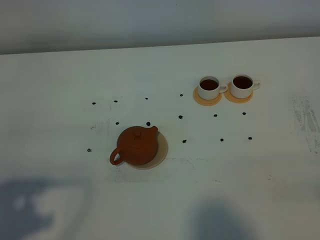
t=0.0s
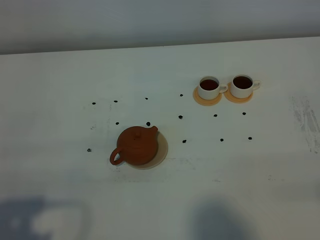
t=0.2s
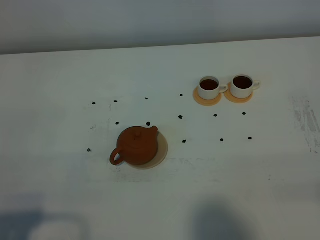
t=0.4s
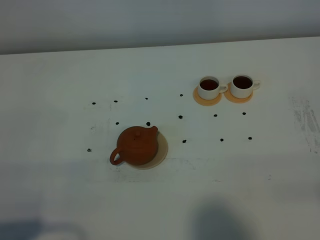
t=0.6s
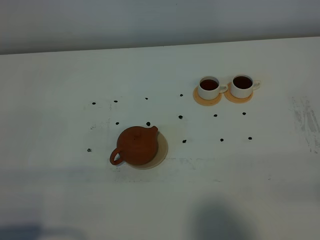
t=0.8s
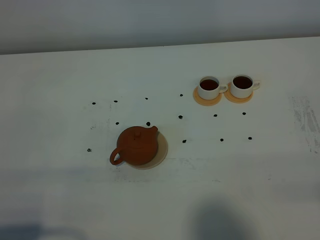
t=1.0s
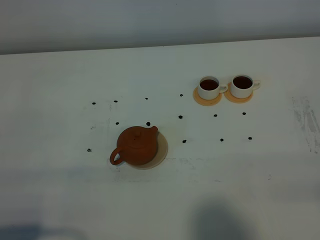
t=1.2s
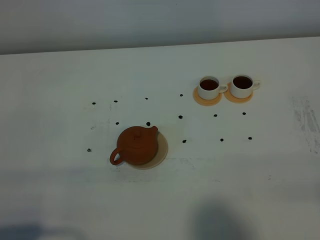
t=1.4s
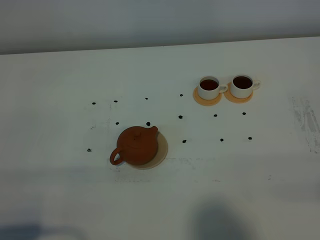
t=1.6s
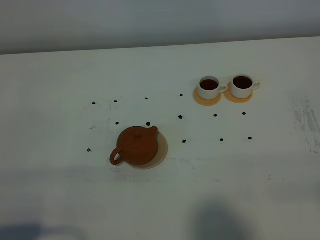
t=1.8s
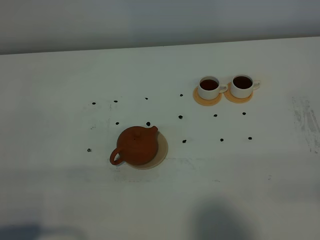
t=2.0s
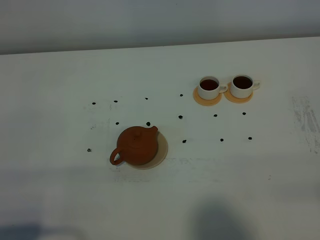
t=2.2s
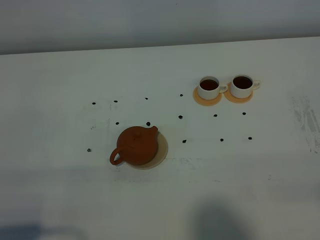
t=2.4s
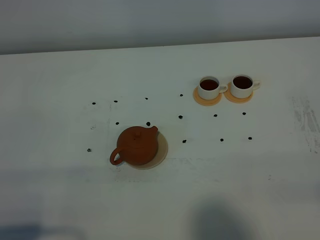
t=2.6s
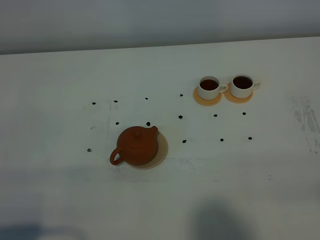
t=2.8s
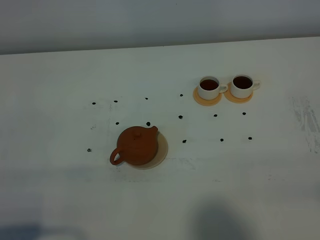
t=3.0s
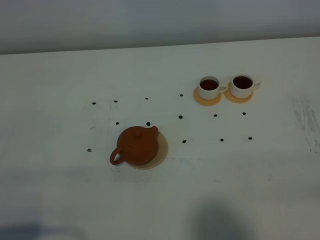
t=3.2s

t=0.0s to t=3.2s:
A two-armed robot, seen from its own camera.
Task of the whole recording: grasp the brown teapot and pour the tea into the two white teacups one by one, put the brown teapot back in its original place.
t=0.0s to t=1.6s: The left gripper shifts some 5 cm backward.
t=1.6s to t=3.2s: Both grippers stay about where they are.

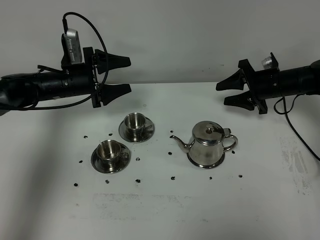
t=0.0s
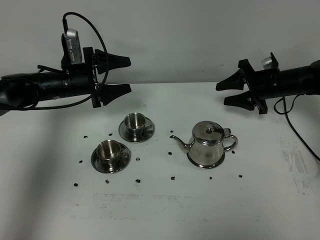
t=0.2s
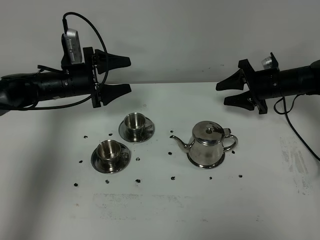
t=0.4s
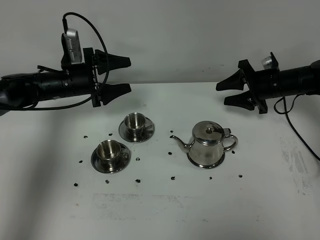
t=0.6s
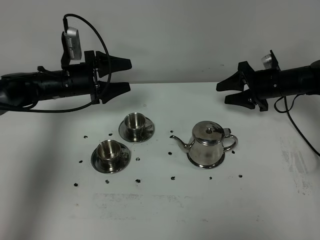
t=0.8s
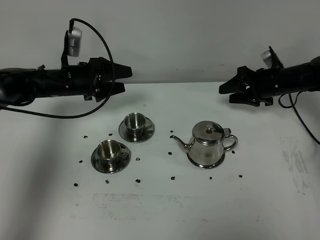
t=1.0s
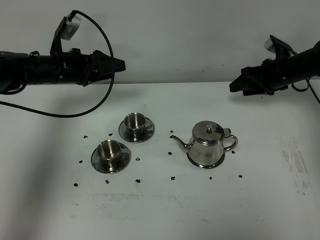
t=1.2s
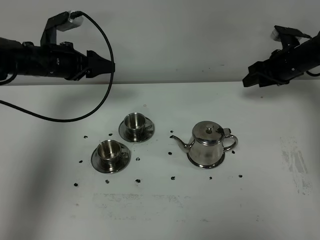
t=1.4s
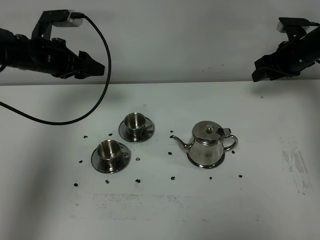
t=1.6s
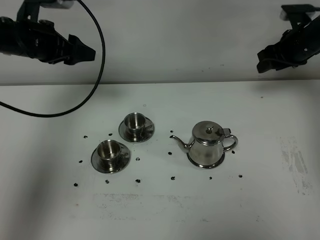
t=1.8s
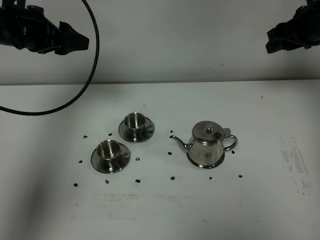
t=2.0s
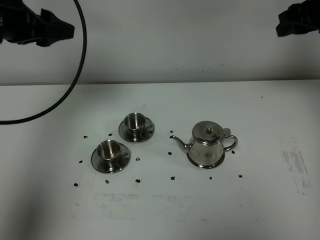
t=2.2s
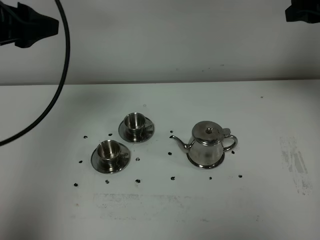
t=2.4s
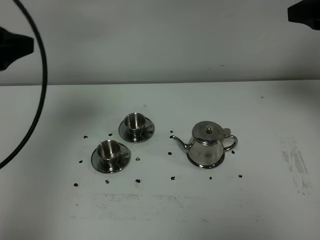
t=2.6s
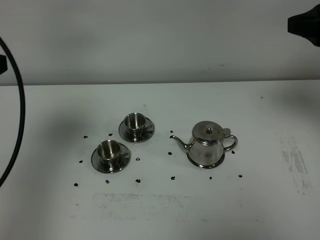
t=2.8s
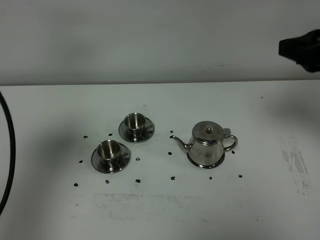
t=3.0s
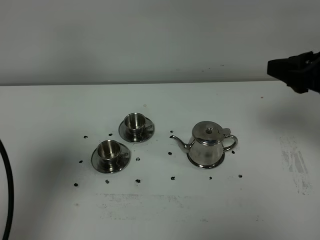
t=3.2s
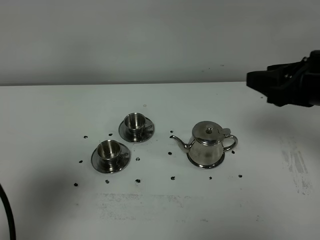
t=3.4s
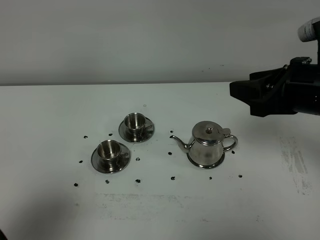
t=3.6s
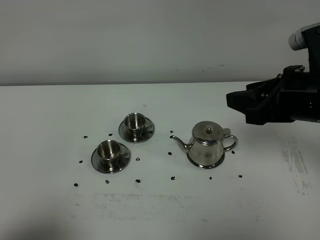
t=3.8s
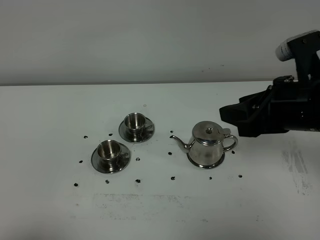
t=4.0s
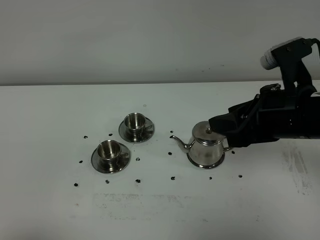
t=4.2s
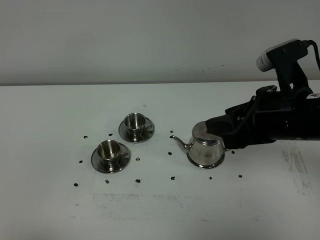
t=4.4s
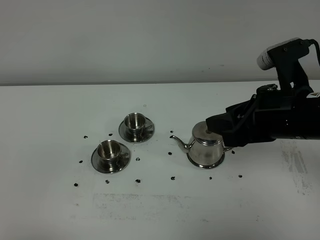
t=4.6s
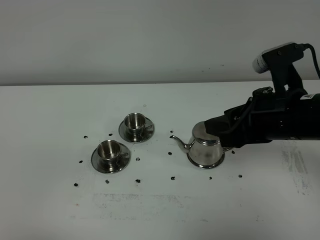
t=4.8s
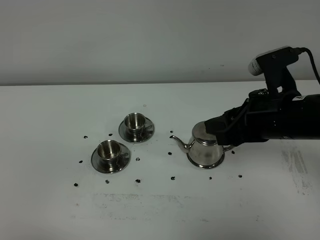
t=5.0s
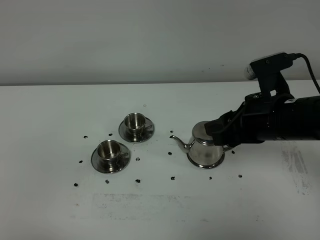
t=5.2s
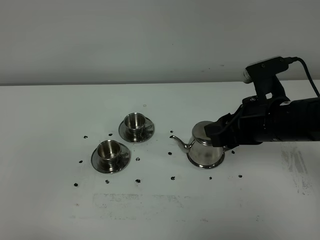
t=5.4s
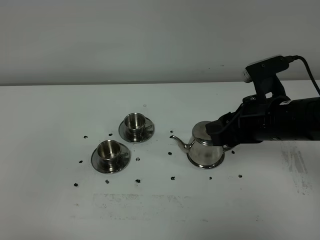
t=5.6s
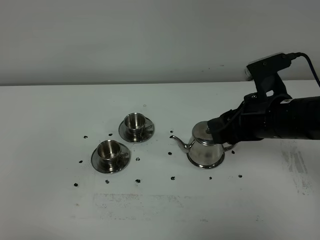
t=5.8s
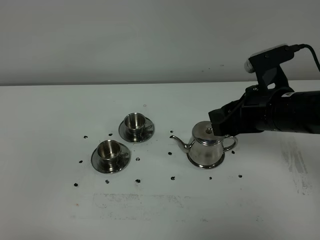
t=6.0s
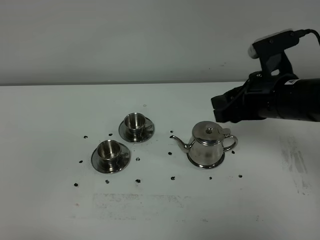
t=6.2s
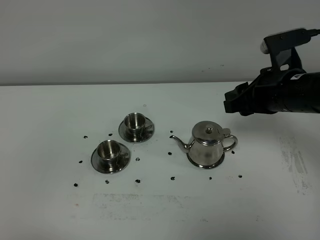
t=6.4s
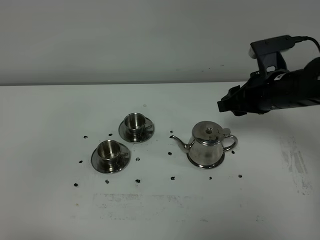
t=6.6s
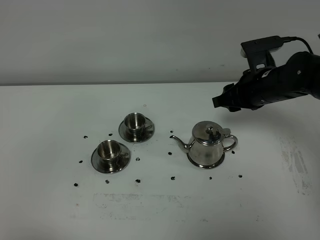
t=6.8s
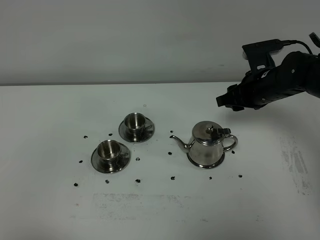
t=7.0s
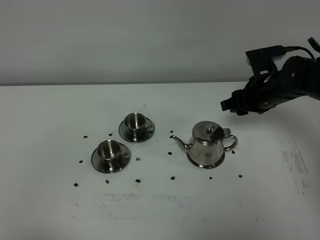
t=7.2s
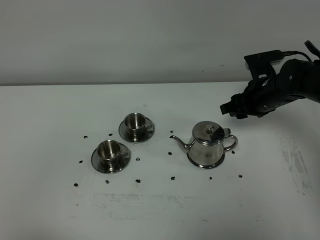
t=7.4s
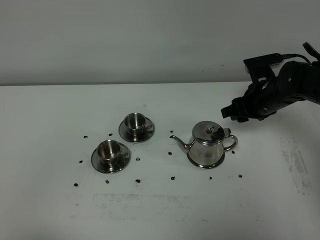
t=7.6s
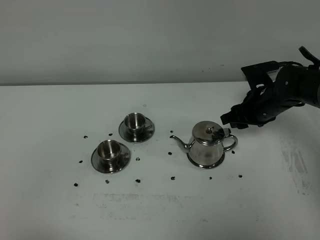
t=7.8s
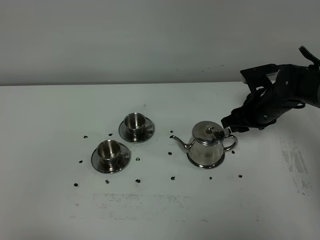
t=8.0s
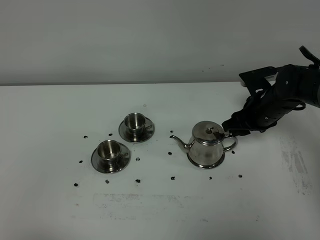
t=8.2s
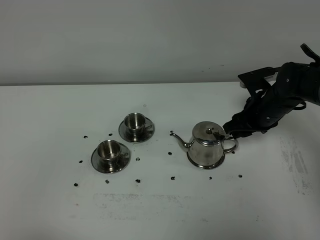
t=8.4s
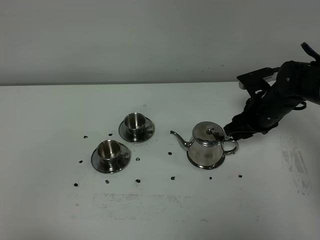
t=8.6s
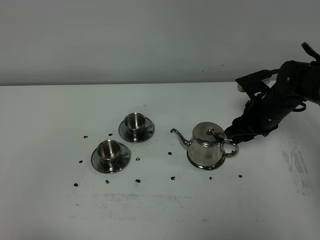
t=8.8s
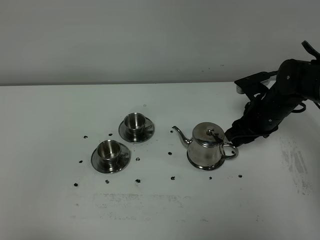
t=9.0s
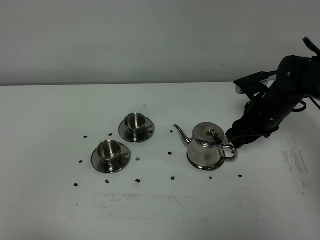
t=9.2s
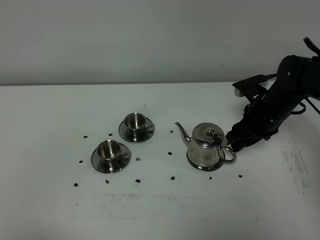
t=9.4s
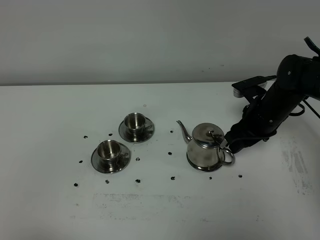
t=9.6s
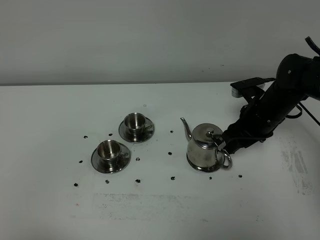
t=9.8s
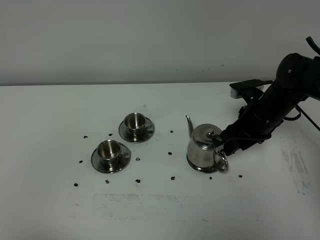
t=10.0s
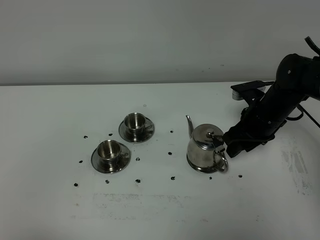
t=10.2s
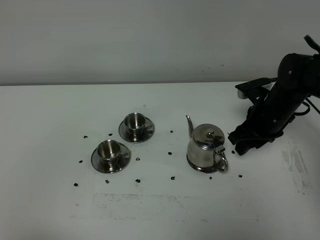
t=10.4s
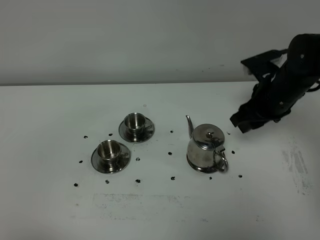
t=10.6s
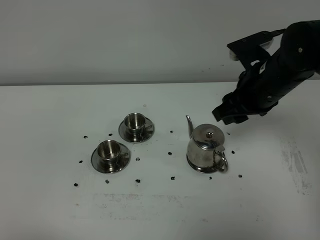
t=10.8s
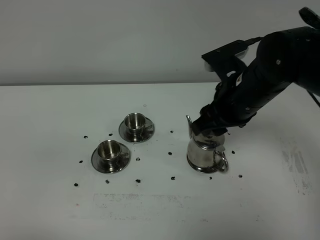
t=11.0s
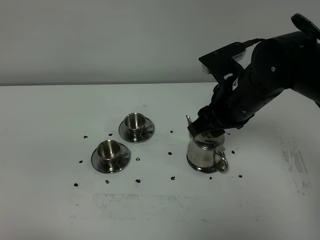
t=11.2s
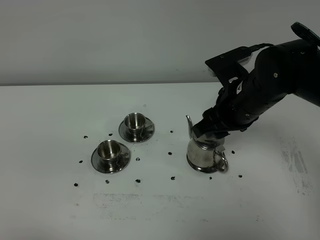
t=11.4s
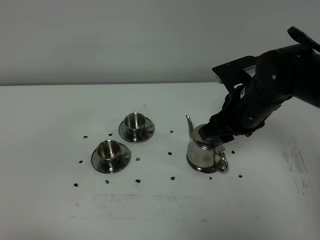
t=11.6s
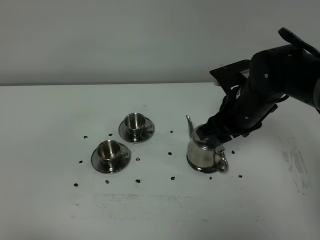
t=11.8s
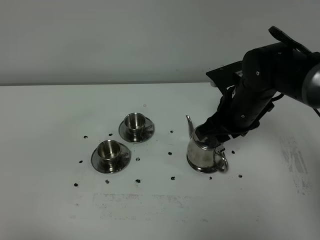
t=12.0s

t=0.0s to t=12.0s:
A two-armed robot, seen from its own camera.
Task of the whole recording: grasp the stainless steel teapot and pour the tea into the two stainless steel teacups one by one, put the stainless steel teapot back in its original place.
t=0.0s to t=1.6s: The grippers both shift upward by roughly 10 cm.
t=1.6s to t=3.0s: The two grippers go about 30 cm backward and upward.
t=3.0s to t=4.4s: The right gripper goes roughly 10 cm to the left and downward; the left gripper heads backward and downward, covering roughly 20 cm, and closes.
t=4.4s to t=6.0s: The right gripper moves forward, roughly 5 cm.
t=6.0s to t=7.6s: The right gripper is displaced forward and downward by approximately 15 cm.
t=7.6s to t=9.0s: The grippers stay close to where they were, moving slightly.
t=9.0s to t=10.4s: The grippers make only small movements.
t=10.4s to t=12.0s: The right gripper goes roughly 5 cm to the left.

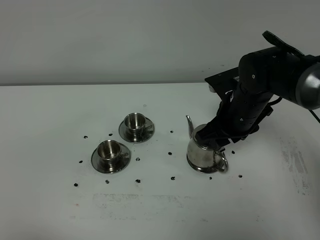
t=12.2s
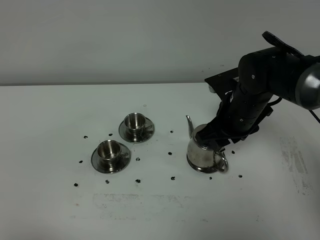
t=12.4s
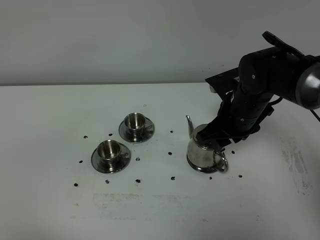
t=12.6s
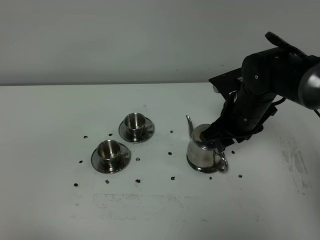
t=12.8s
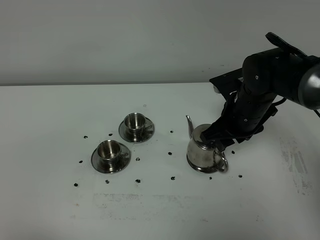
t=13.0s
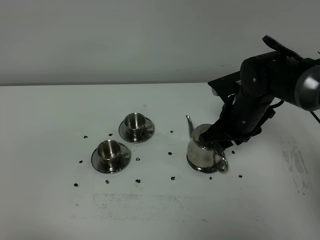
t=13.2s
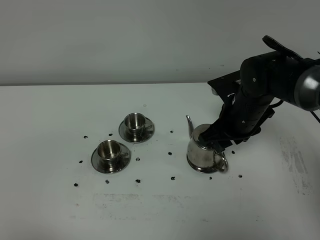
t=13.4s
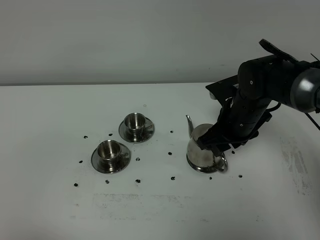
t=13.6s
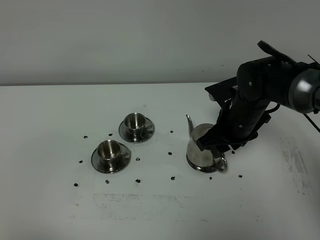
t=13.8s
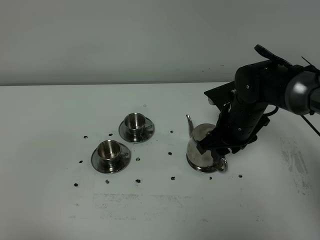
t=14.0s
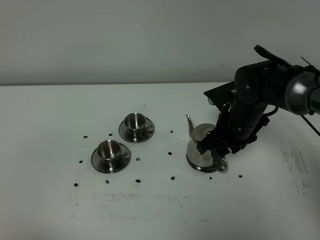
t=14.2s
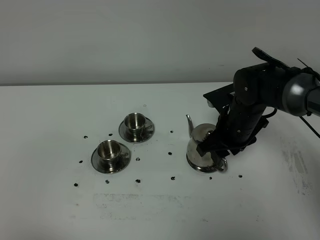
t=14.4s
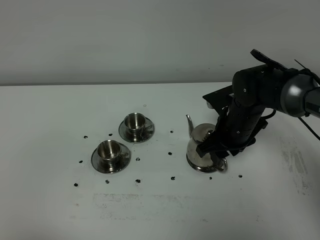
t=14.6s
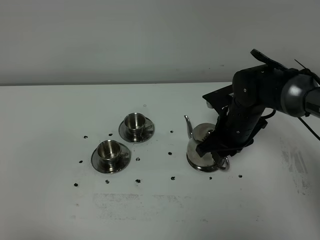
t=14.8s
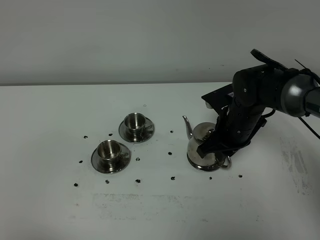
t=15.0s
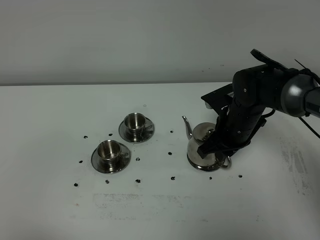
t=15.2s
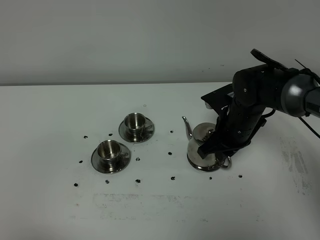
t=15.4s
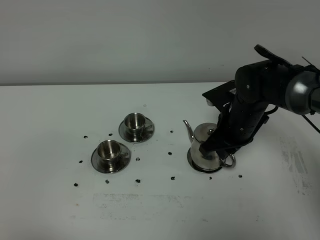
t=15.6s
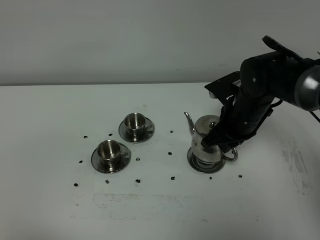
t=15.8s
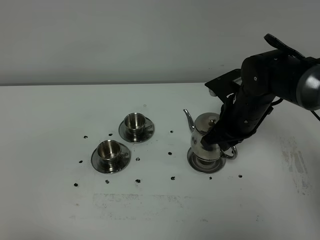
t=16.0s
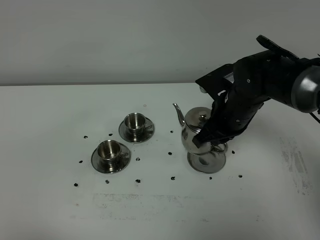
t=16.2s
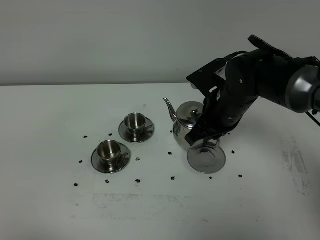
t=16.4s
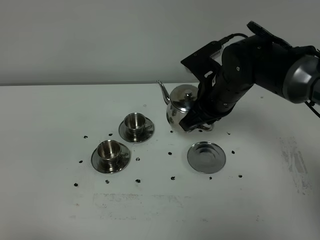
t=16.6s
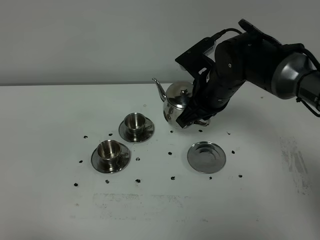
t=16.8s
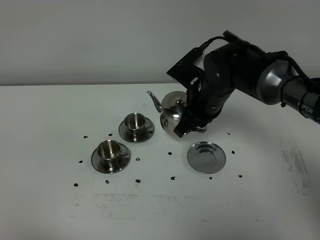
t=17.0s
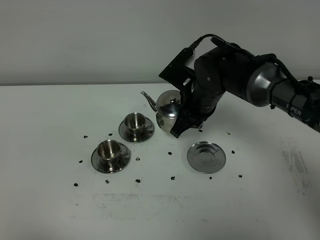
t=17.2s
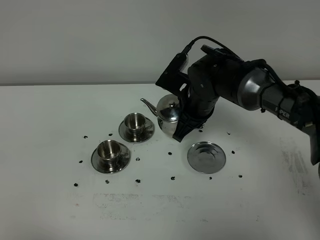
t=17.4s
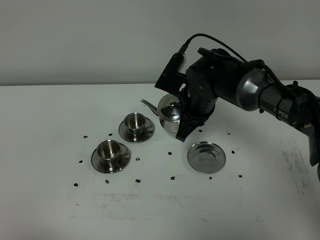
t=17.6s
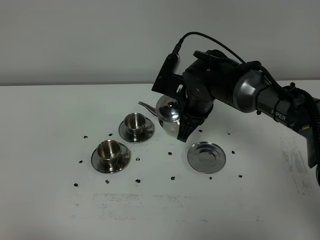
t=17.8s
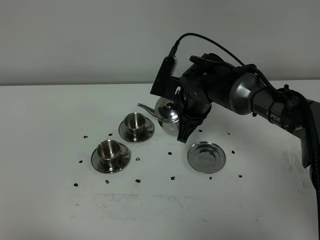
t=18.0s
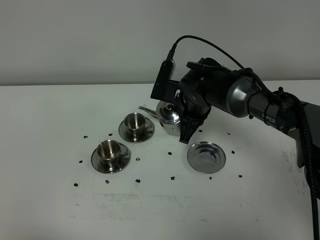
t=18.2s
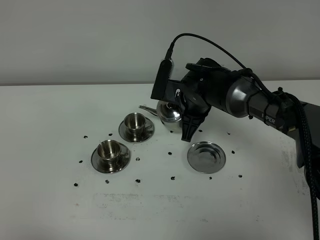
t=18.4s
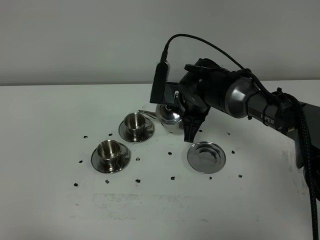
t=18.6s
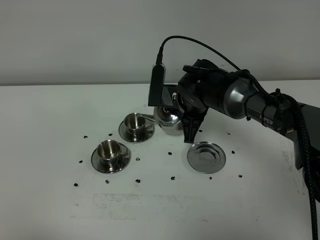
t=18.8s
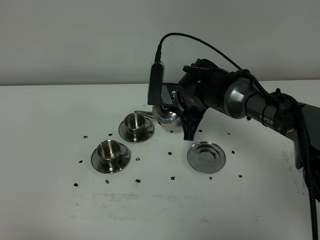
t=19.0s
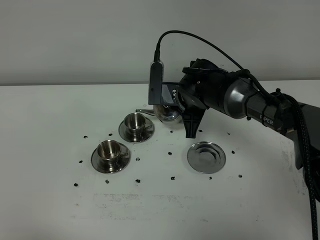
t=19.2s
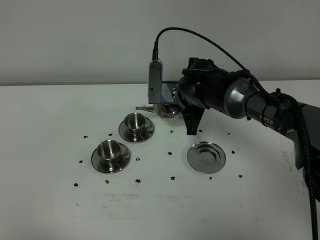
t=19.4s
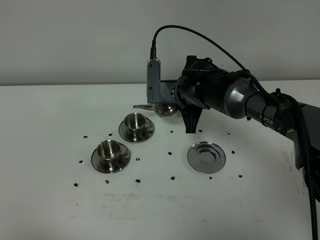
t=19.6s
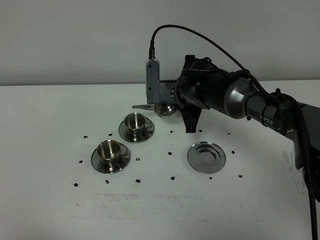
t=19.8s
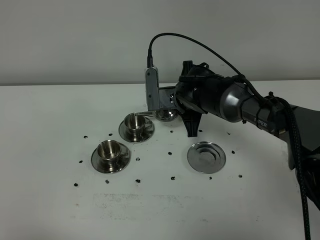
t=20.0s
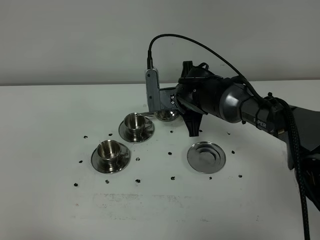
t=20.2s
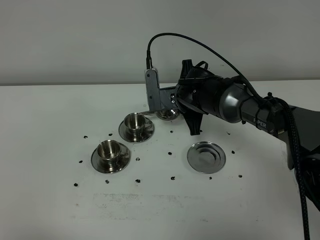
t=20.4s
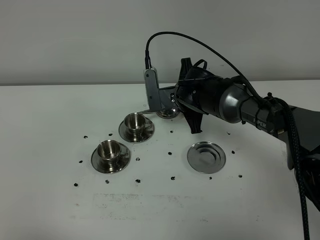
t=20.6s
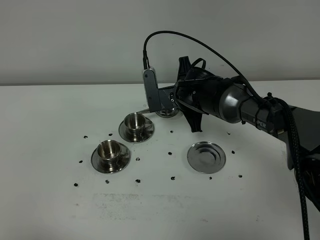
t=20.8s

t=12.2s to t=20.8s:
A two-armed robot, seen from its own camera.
Task of the whole recording: grasp the stainless steel teapot and pour the tea into the two stainless steel teacups one by one, put the stainless steel teapot back in its original place.
Step, t=12.2s to t=16.0s: Pick up the teapot with the right gripper.
t=12.2s to t=13.6s: The grippers stay close to where they were, moving slightly.
t=13.6s to t=15.0s: The right gripper closes up.
t=15.0s to t=16.6s: The right gripper moves upward, approximately 10 cm.
t=16.6s to t=18.0s: The right gripper is displaced downward by roughly 5 cm.
t=19.4s to t=20.8s: There are only small adjustments of the grippers.
